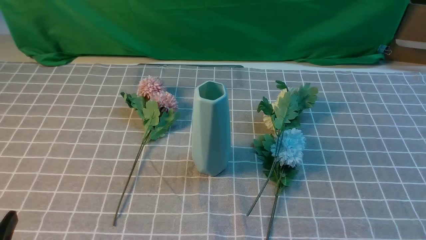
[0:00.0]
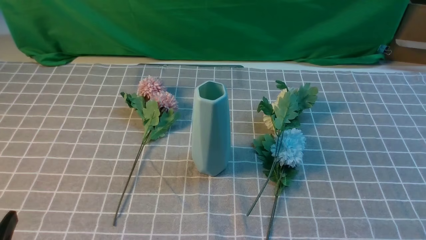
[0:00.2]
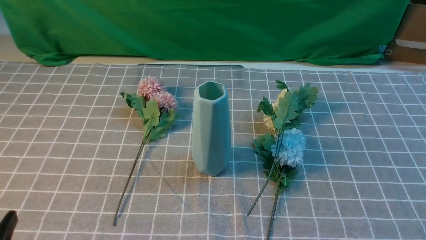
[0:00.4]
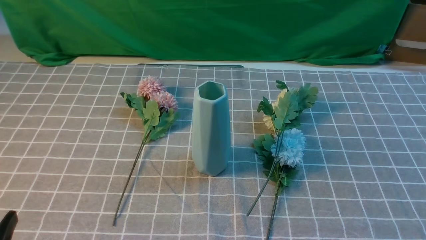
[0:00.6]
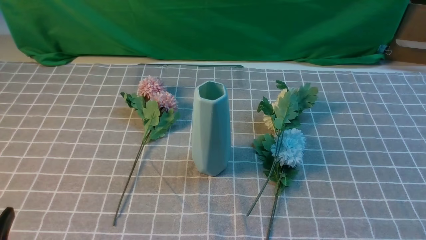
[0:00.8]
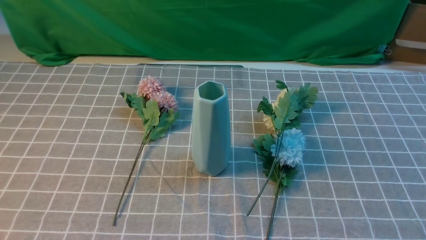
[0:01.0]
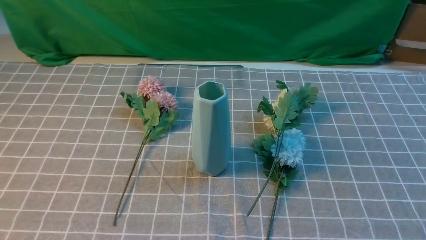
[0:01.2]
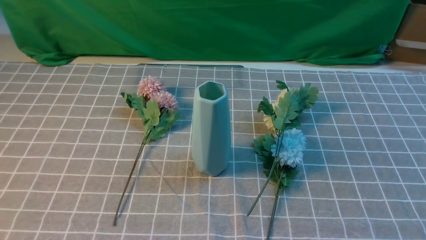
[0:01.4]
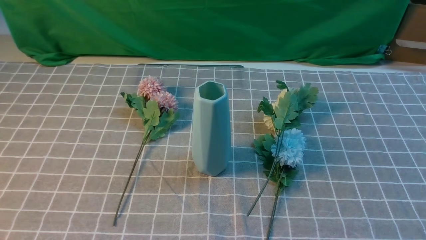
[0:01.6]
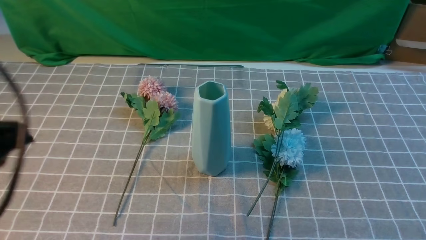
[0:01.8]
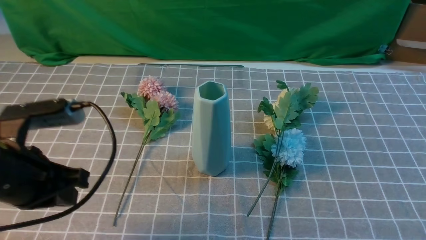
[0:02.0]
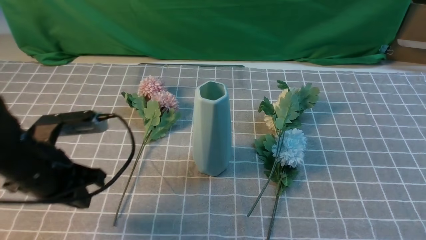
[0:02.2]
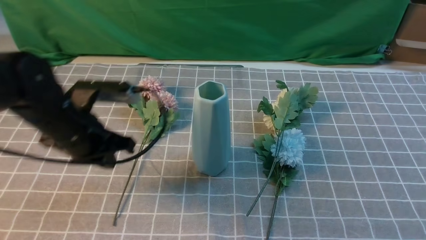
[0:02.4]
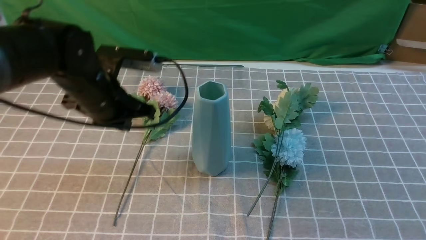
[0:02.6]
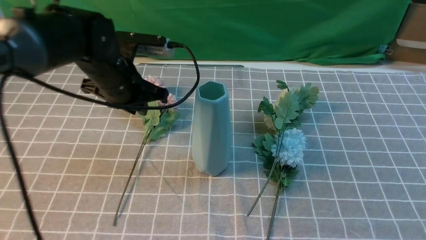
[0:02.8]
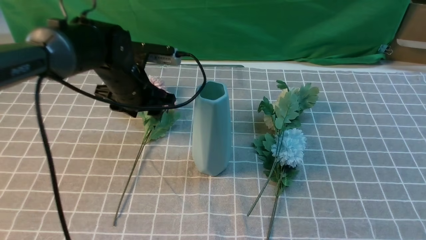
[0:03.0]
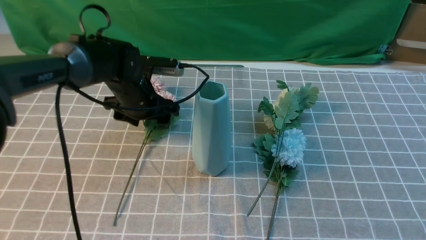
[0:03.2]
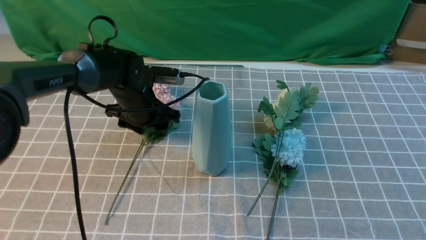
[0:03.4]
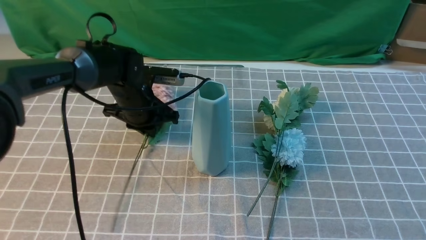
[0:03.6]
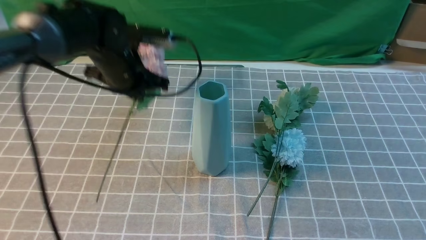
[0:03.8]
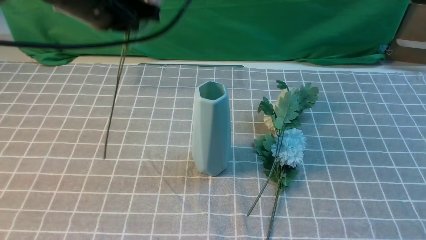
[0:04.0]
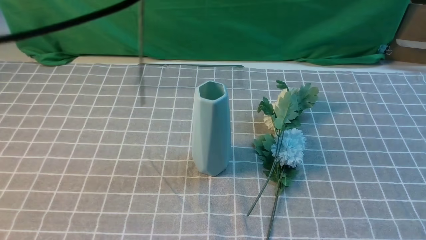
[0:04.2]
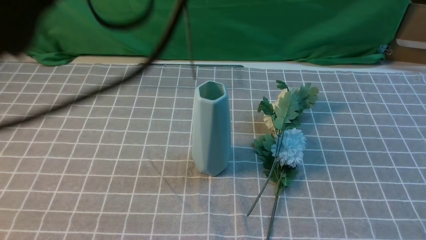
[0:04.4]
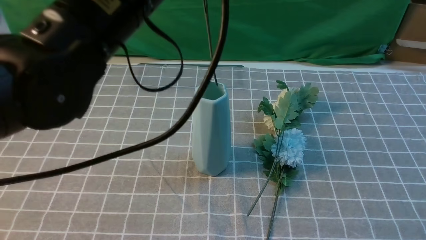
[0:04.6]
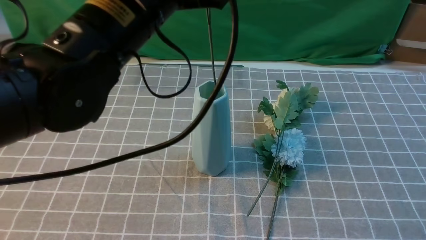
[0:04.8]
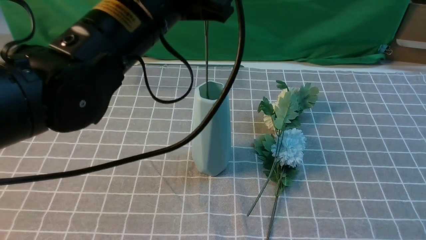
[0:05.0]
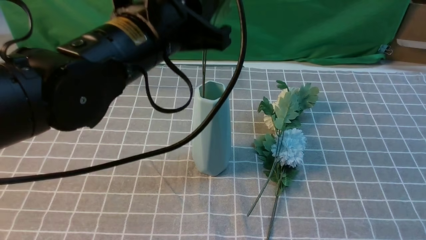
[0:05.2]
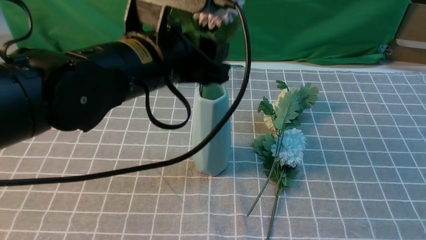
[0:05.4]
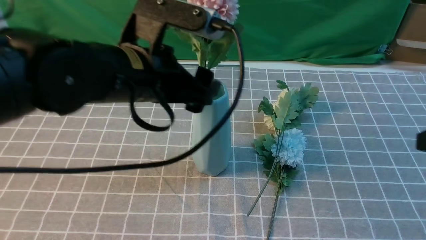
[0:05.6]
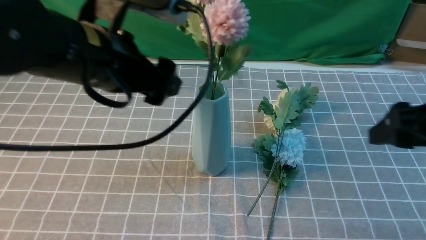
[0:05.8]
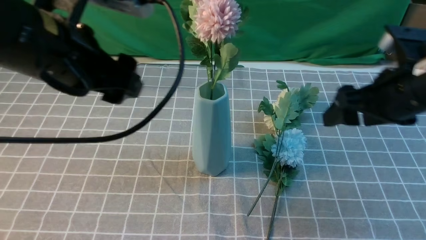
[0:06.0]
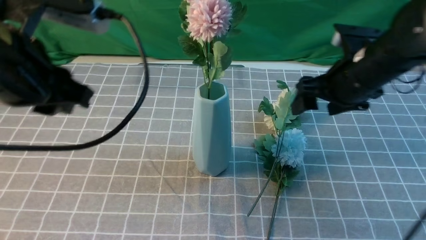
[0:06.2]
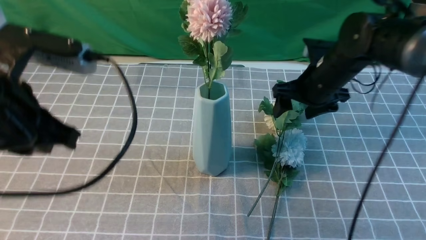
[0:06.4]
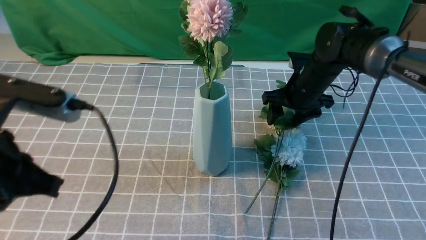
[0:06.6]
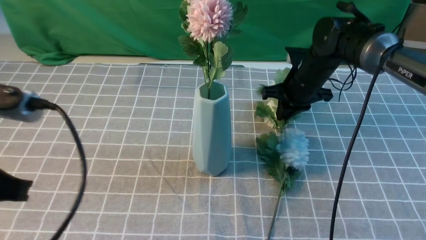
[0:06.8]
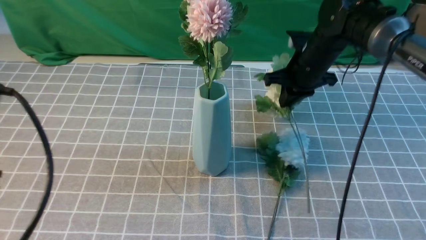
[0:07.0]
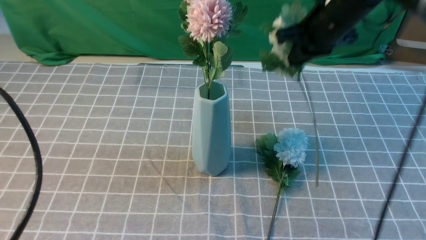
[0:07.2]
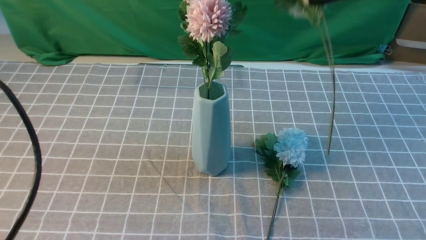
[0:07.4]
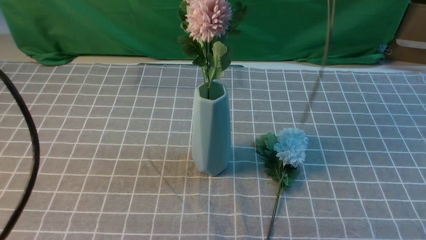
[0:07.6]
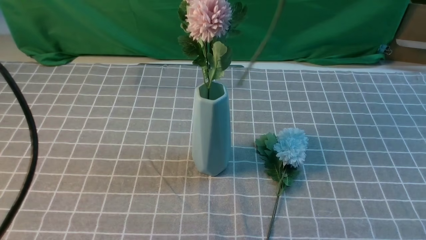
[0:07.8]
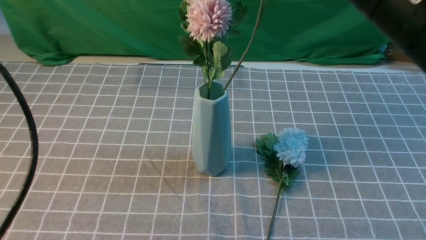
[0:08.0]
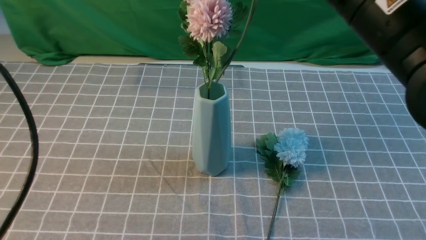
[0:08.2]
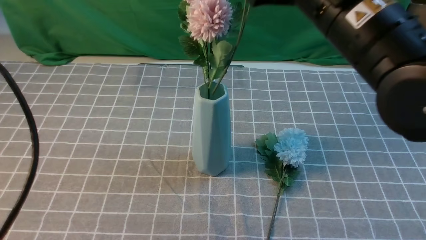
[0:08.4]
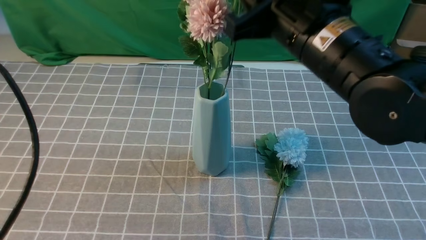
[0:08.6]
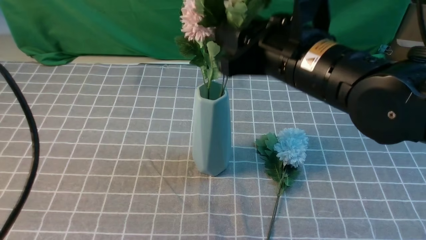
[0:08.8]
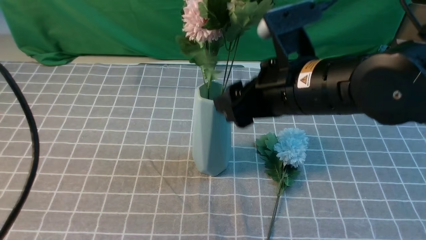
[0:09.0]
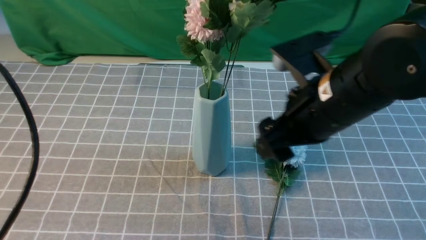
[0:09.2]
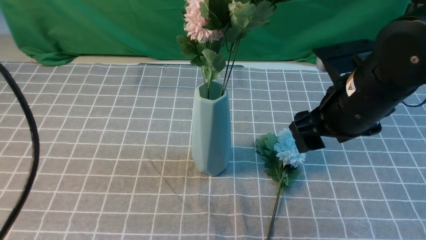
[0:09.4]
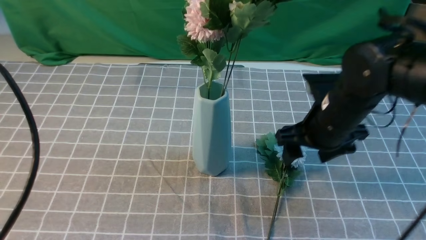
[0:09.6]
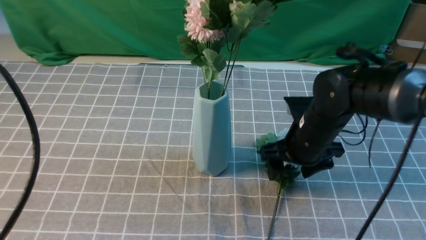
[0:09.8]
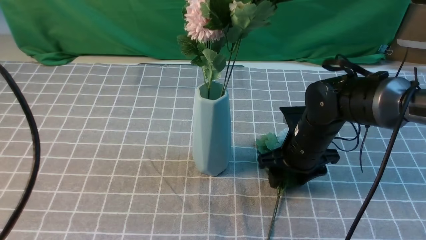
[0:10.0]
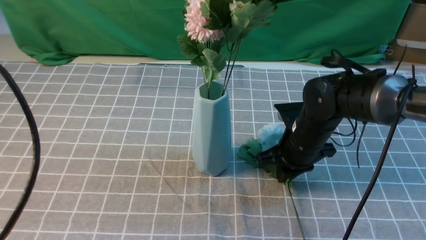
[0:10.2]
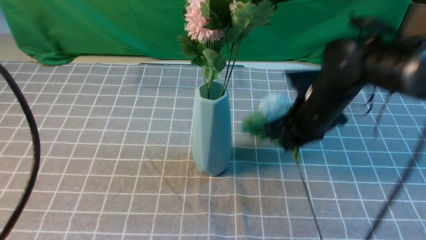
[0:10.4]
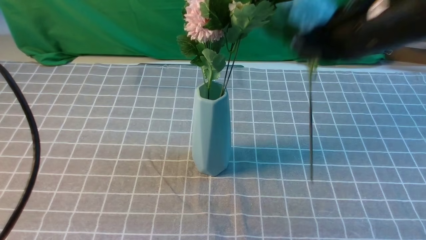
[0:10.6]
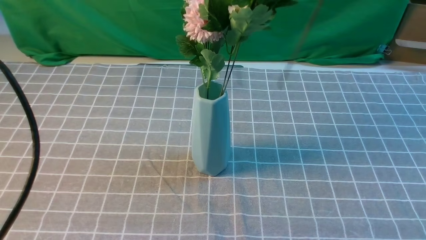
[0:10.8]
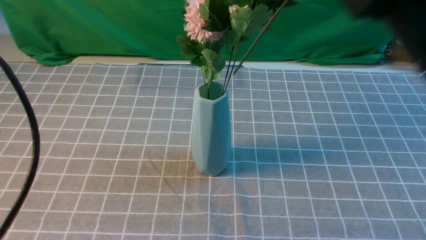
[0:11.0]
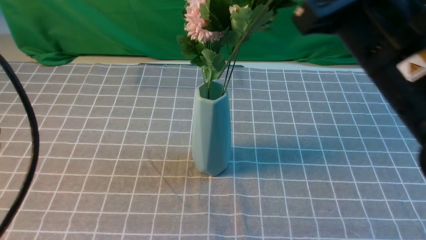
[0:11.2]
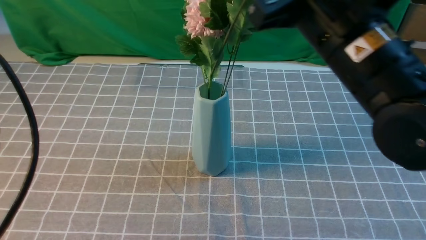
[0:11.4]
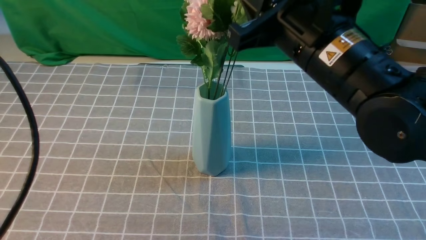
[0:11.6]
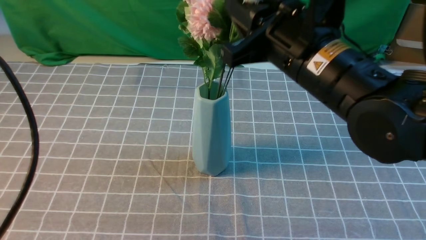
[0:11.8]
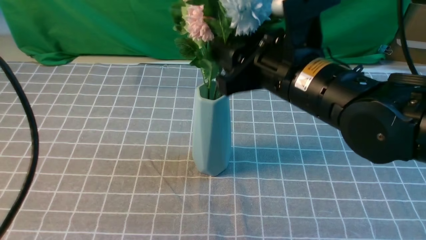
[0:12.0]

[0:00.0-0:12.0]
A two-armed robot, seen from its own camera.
Task of the whole recording: insert the flowers into the vase on the table with the grey tablecloth.
Step, 0:00.0 to 0:03.4: use the left arm to grab a bunch of fresh flowers.
Step, 0:03.6 to 0:05.6: use the left arm to insert the flowers into the vase.
Step, 0:05.8 to 0:06.8: use the right arm to grab a bunch of fresh flowers.
Step, 0:07.0 to 0:08.8: use the right arm to insert the flowers into the vase.
Step, 0:09.0 to 0:10.2: use the right arm to grab a bunch of fresh flowers.
0:01.6 to 0:03.0: The right gripper is displaced upward and forward by approximately 15 cm. Meanwhile the left gripper shifts roughly 30 cm forward, and opens its fingers.
0:03.0 to 0:04.4: The left gripper is displaced upward and backward by approximately 25 cm, and closes up.
0:04.4 to 0:06.0: The left gripper heads downward and to the left, covering about 10 cm, and opens up. Meanwhile the right gripper is displaced forward and to the left by approximately 20 cm, and opens up.
0:06.0 to 0:07.6: The left gripper shifts approximately 15 cm backward and to the left, and closes, while the right gripper shifts roughly 15 cm upward, and closes its fingers.
0:07.6 to 0:09.0: The right gripper shifts some 15 cm downward and to the left, and opens its fingers.
0:09.0 to 0:10.4: The right gripper moves forward, approximately 5 cm, moves roughly 15 cm downward and comes back, and closes up.
0:10.4 to 0:12.0: The right gripper is displaced backward and to the left by roughly 10 cm, goes upward and returns, roughly 15 cm each way, and opens up.

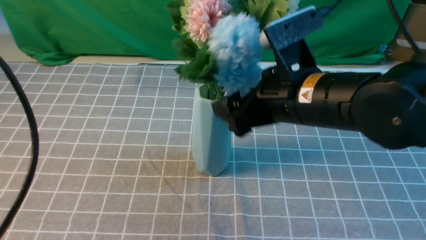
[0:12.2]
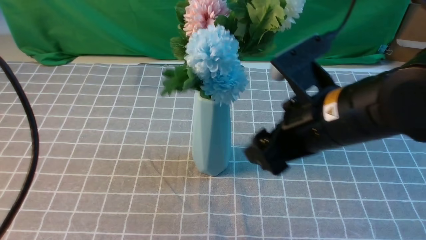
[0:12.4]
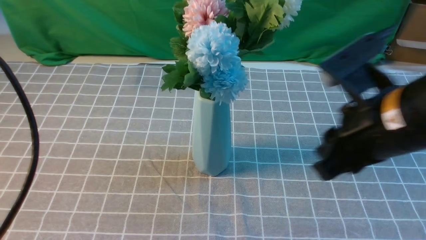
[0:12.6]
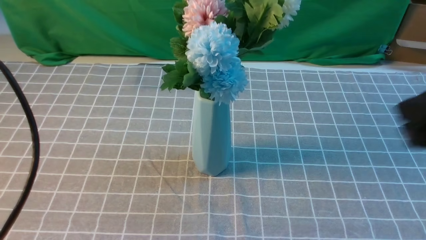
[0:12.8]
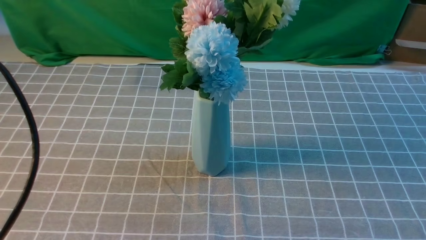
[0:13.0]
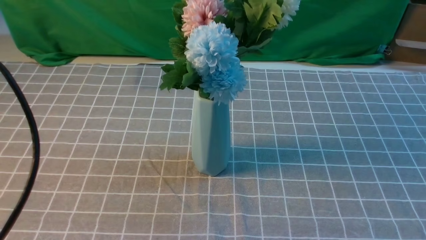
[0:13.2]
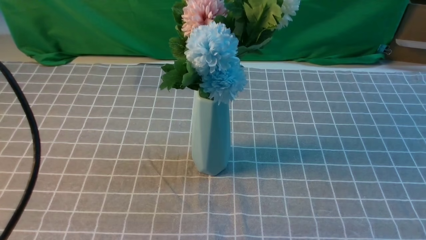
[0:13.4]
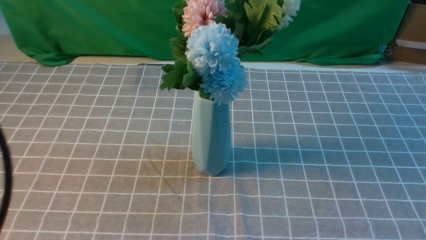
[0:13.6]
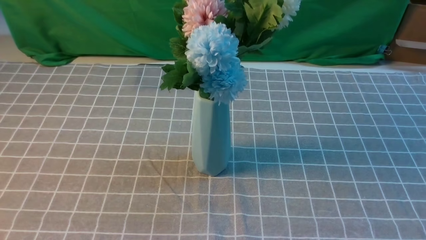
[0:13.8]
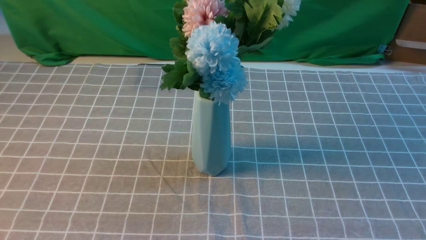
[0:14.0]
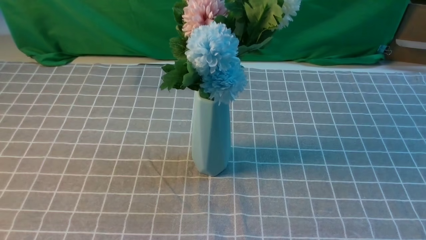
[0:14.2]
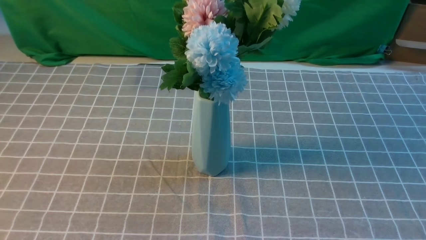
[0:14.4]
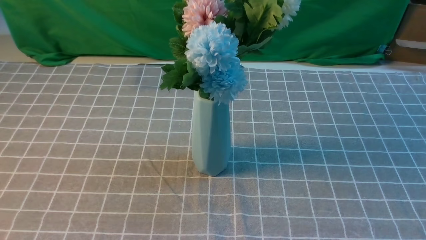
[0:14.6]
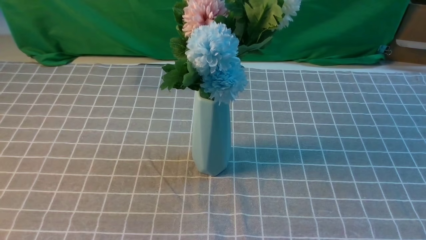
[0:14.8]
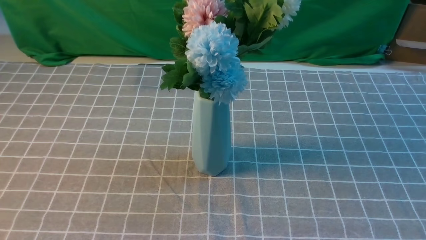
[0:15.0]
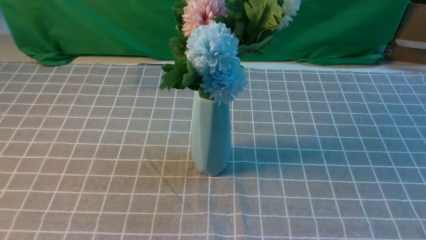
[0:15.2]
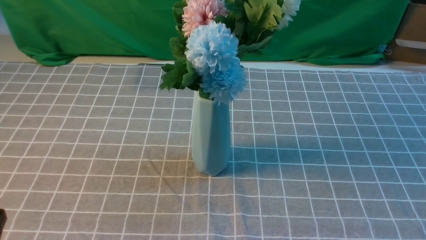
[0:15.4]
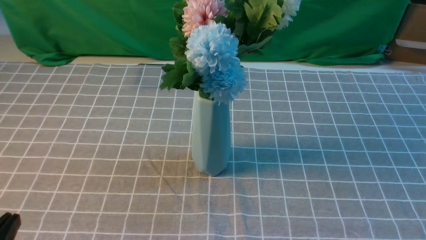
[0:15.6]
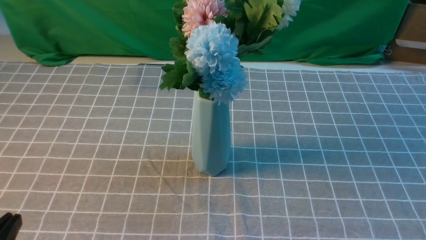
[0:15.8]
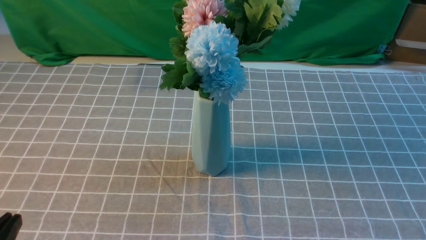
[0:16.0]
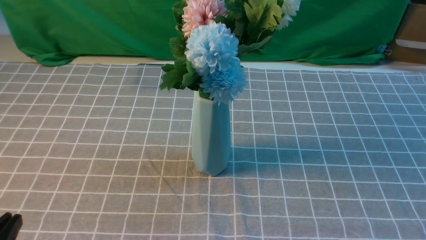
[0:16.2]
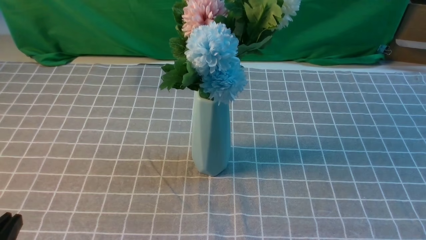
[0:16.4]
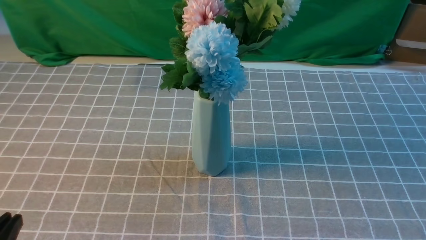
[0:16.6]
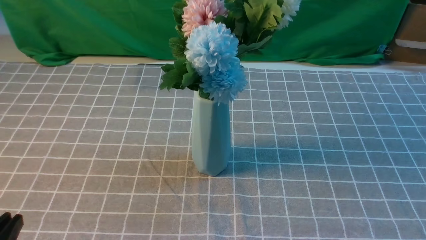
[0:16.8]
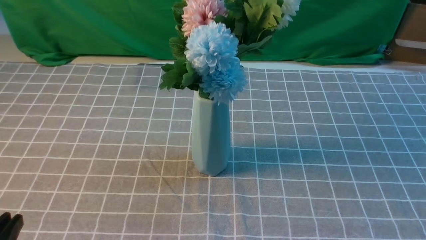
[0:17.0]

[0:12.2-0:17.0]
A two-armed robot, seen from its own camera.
Task of the whole recording: insert the flowers into the vase on the table with the grey tablecloth.
0:12.2 to 0:13.8: The left gripper moves backward, some 10 cm. The right gripper travels backward and to the right by roughly 35 cm, and closes up.
